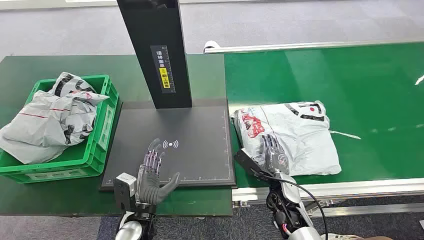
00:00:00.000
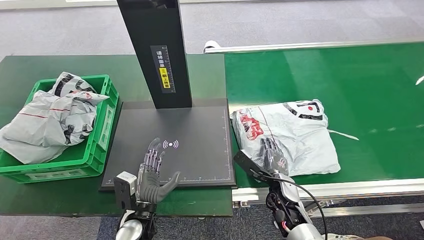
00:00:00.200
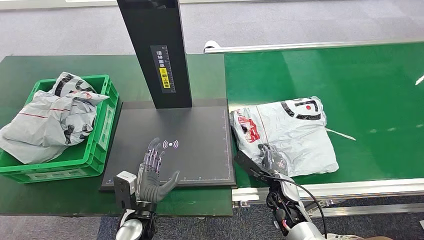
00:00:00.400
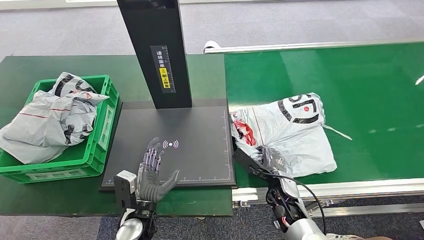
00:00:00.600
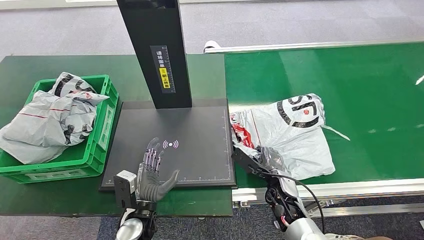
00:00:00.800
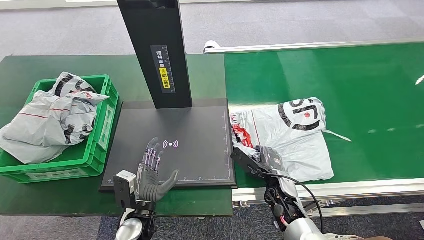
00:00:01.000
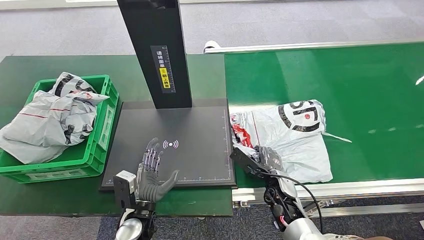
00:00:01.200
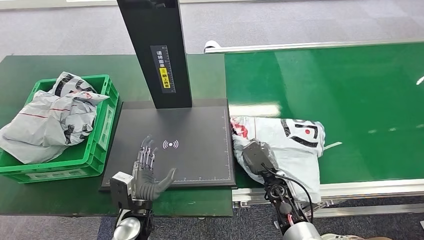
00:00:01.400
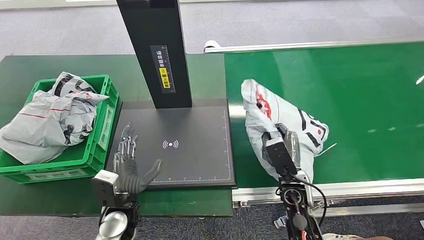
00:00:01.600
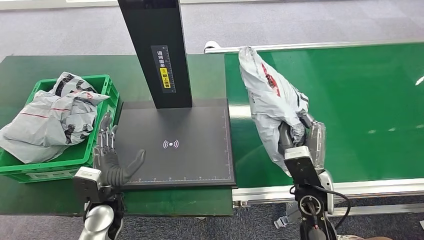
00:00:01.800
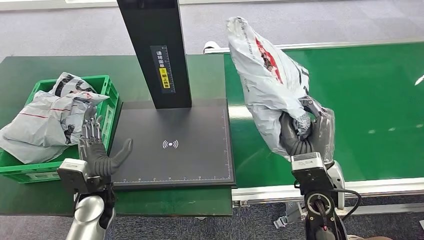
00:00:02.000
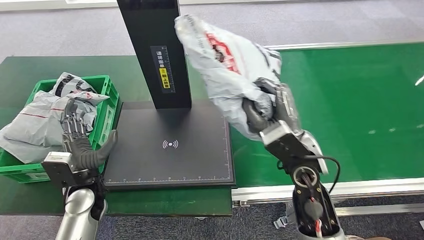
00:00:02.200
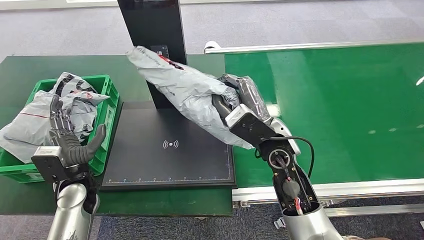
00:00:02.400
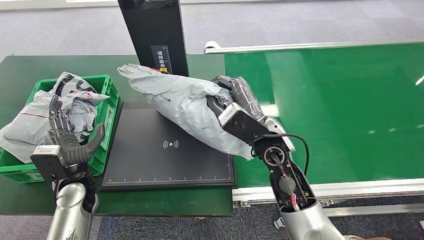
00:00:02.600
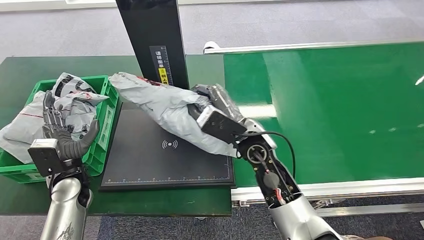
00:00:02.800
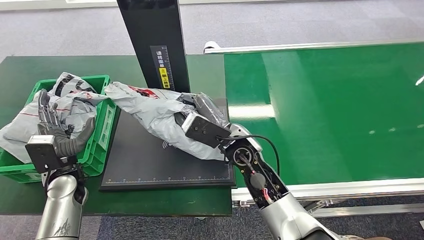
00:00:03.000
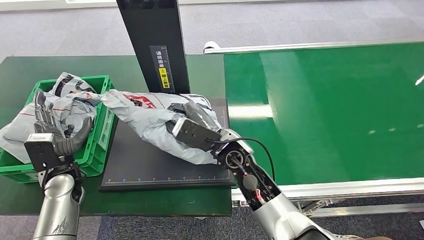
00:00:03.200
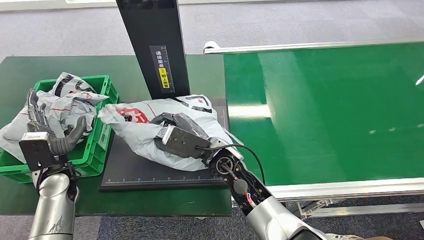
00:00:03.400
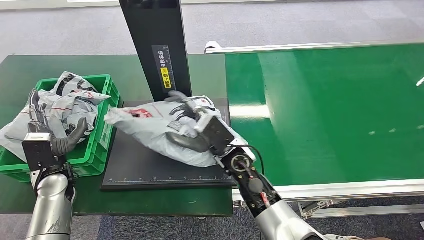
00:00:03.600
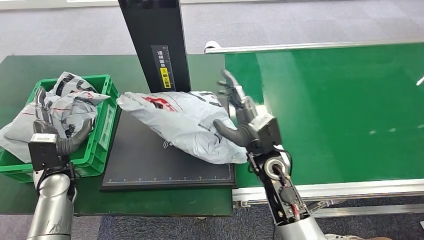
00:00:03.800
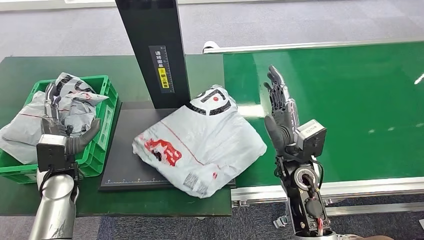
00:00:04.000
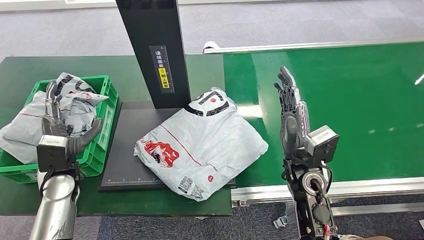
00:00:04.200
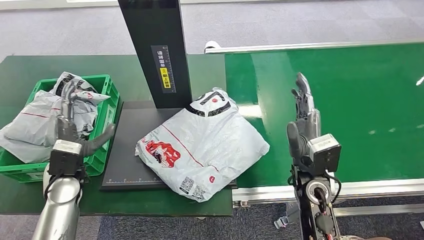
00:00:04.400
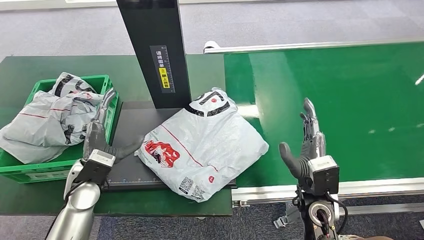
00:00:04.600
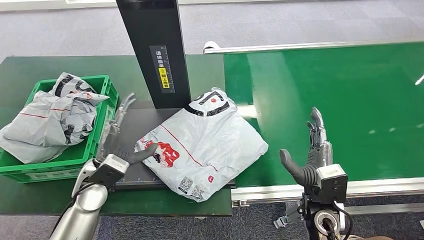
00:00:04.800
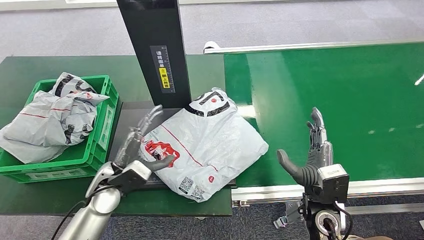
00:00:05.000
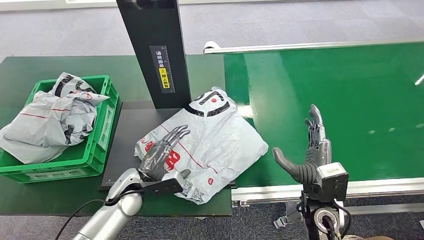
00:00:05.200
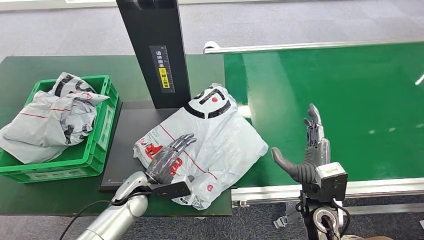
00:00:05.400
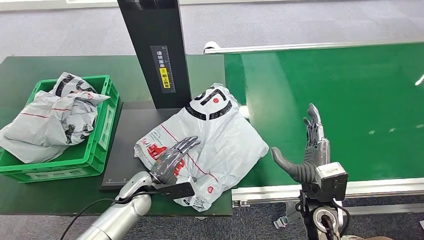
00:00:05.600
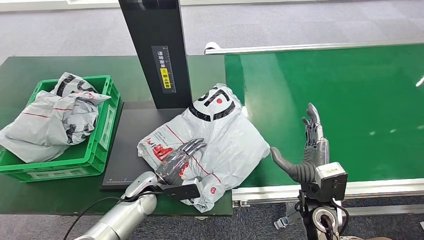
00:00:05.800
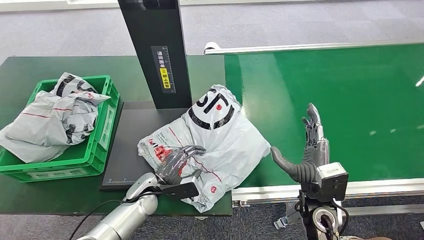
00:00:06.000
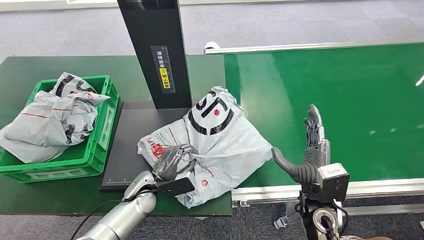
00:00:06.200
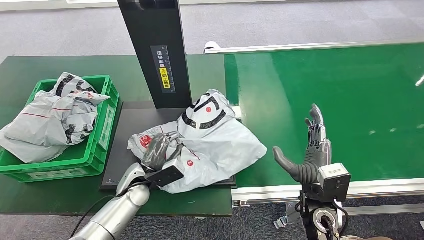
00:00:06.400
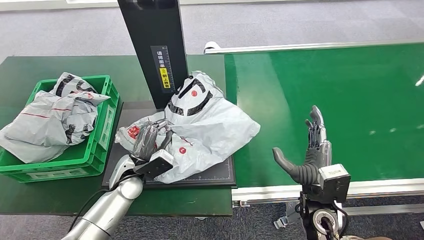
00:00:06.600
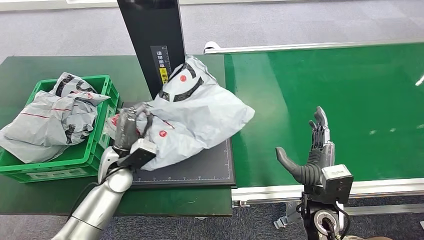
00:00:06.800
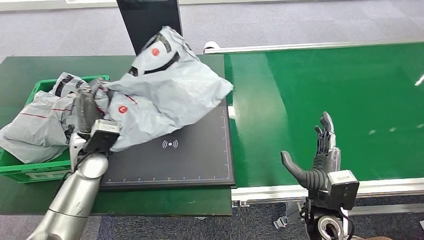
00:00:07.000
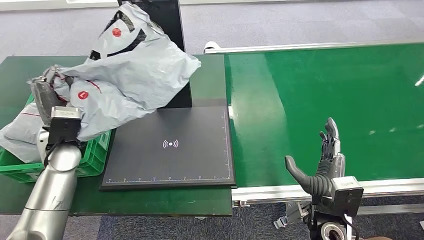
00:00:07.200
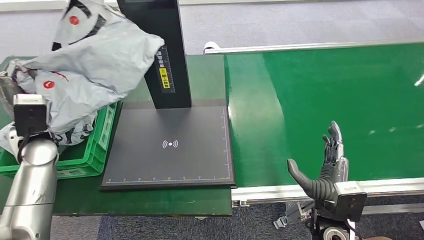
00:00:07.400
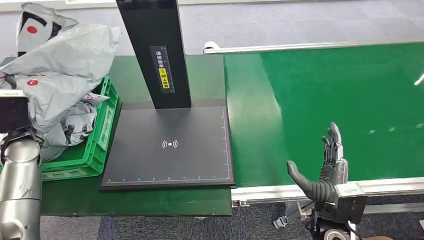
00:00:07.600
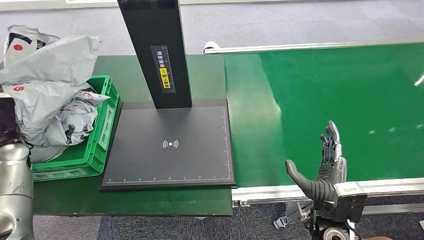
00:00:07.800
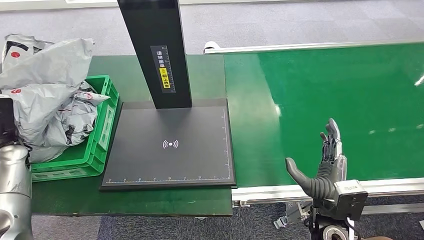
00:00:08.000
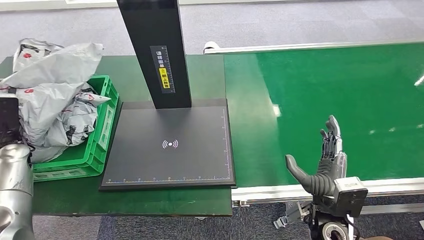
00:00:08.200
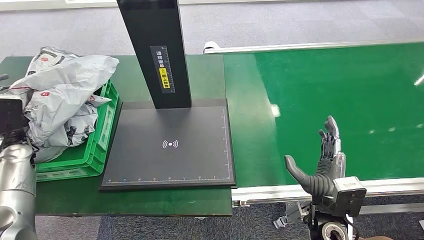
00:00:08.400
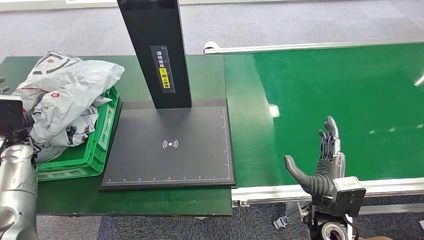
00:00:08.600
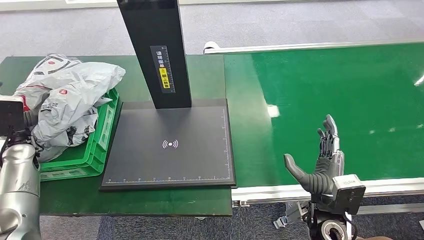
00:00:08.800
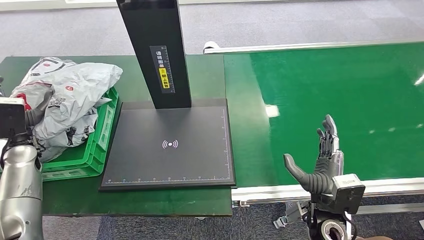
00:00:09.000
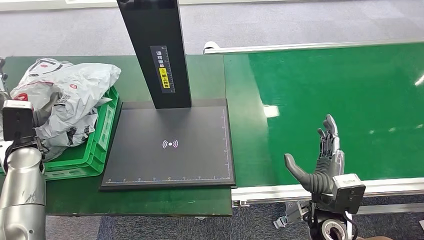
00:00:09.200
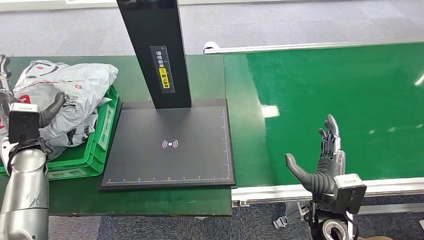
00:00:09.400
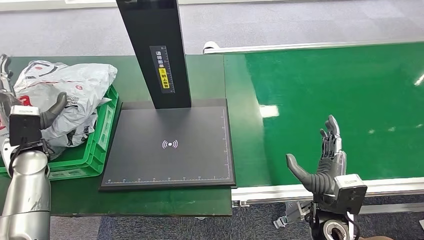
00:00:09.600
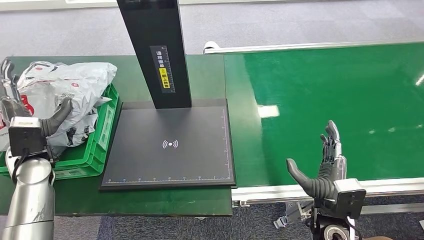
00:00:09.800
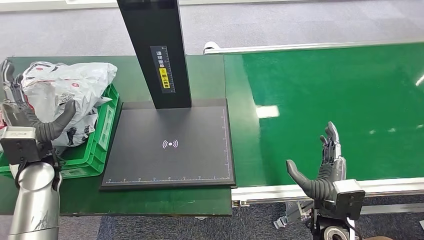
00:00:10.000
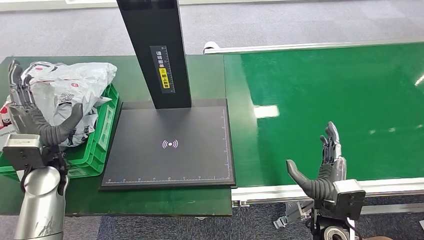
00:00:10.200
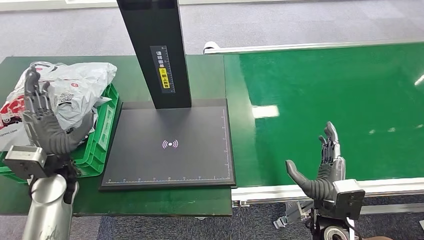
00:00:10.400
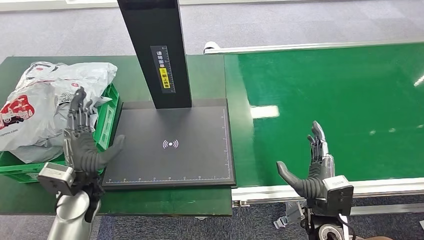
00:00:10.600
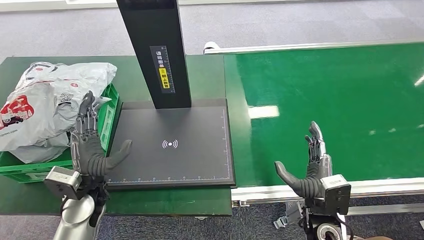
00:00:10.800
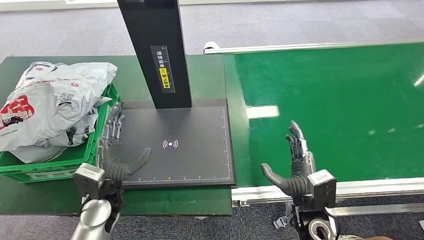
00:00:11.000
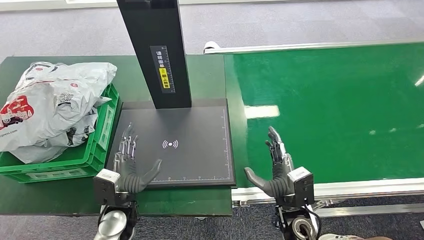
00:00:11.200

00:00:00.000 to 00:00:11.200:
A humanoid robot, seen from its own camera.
Step, 00:00:00.000 to 00:00:02.200: Pick up the package from the conveyor belt.
Step, 00:00:02.400 to 00:00:04.800: Place the package onto the inbound machine.
Step, 00:00:05.000 to 00:00:07.600: Pick up the package from the inbound machine.
Step, 00:00:07.800 to 00:00:11.200: Place the package into the parcel locker.
00:00:04.800 to 00:00:06.400: The left hand shifts approximately 10 cm downward and to the right.
00:00:08.000 to 00:00:09.600: The left hand travels to the right by about 10 cm.
00:00:09.600 to 00:00:11.200: The left hand heads to the right, downward and backward, covering approximately 25 cm. Meanwhile the right hand heads to the left, covering roughly 5 cm.
